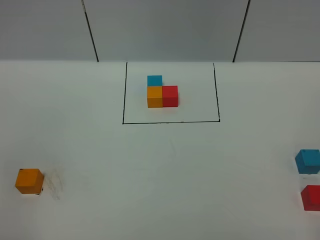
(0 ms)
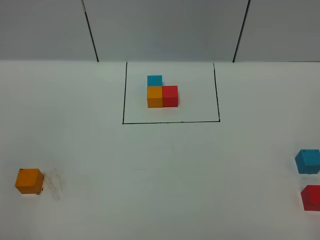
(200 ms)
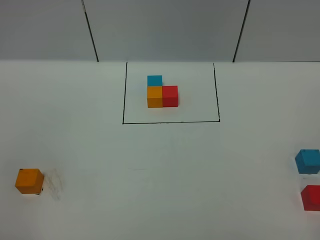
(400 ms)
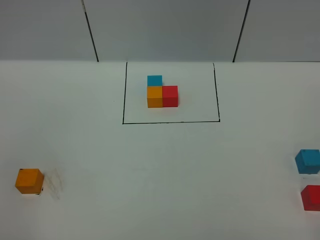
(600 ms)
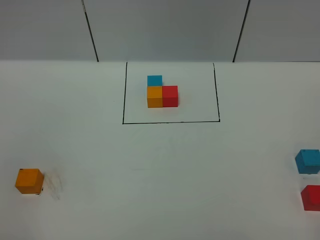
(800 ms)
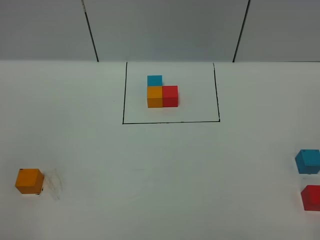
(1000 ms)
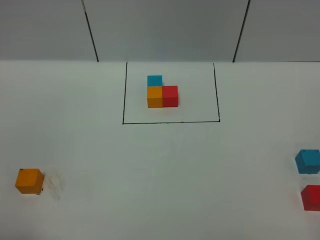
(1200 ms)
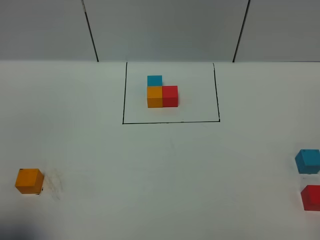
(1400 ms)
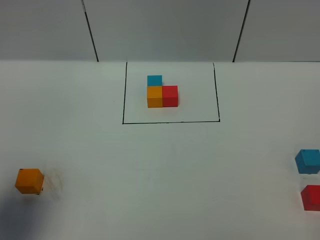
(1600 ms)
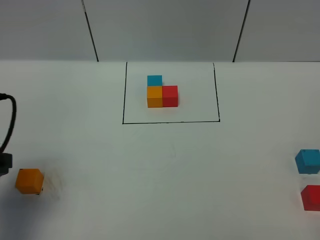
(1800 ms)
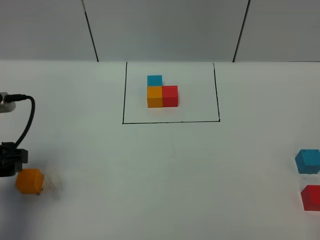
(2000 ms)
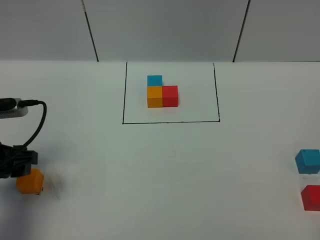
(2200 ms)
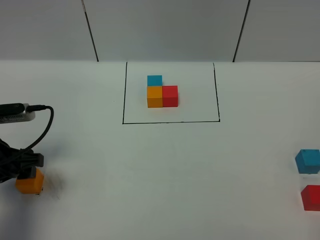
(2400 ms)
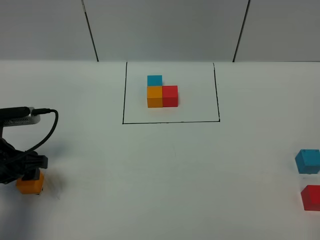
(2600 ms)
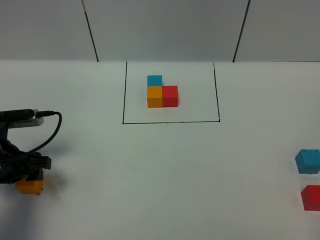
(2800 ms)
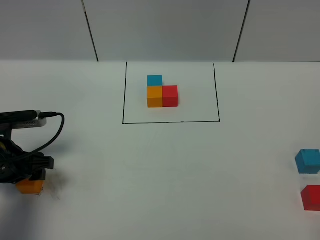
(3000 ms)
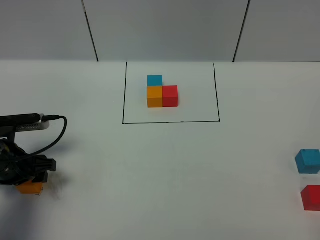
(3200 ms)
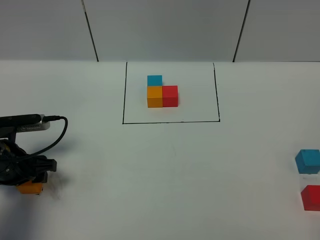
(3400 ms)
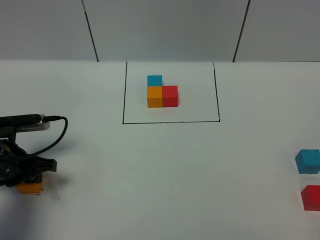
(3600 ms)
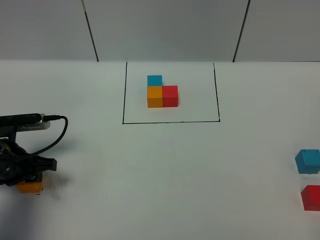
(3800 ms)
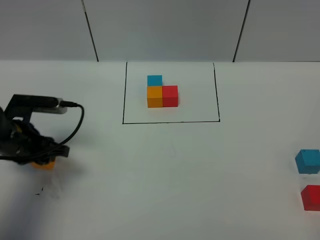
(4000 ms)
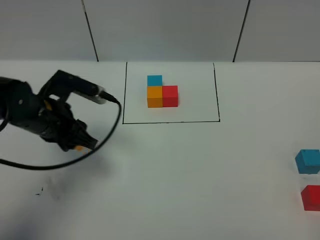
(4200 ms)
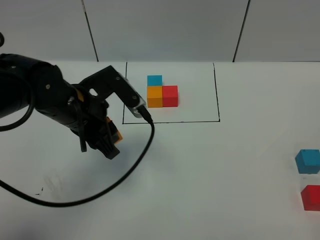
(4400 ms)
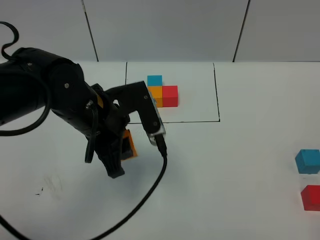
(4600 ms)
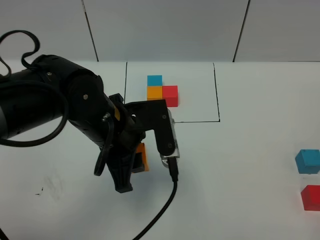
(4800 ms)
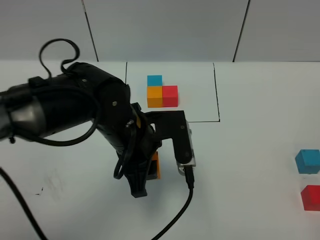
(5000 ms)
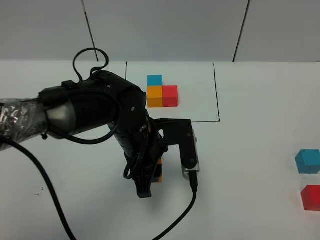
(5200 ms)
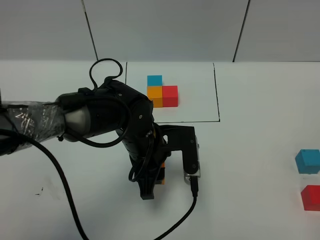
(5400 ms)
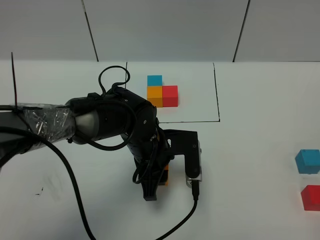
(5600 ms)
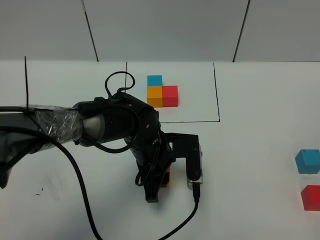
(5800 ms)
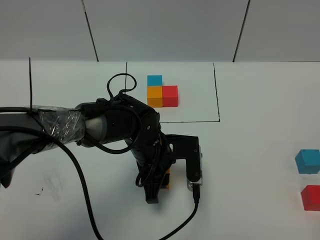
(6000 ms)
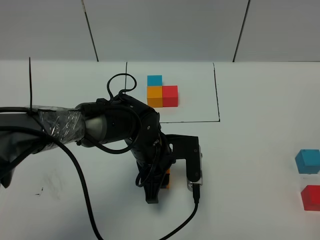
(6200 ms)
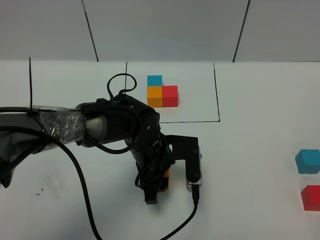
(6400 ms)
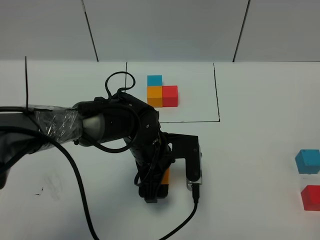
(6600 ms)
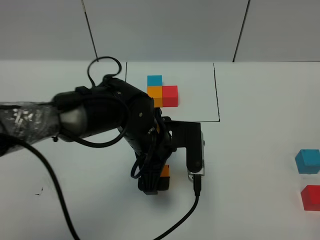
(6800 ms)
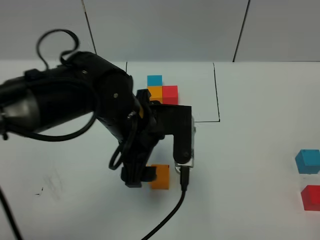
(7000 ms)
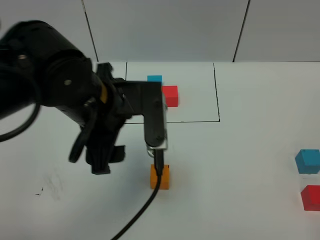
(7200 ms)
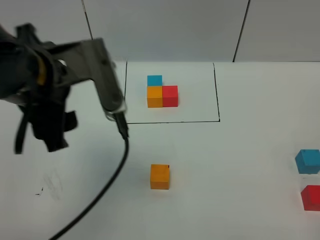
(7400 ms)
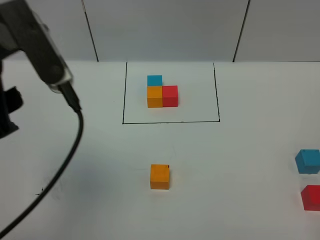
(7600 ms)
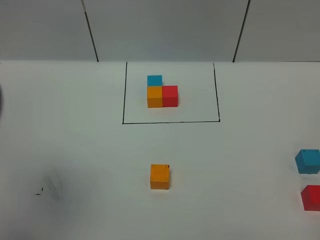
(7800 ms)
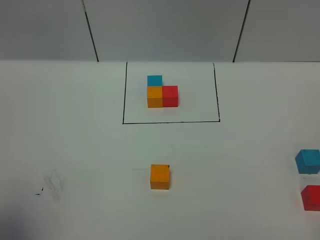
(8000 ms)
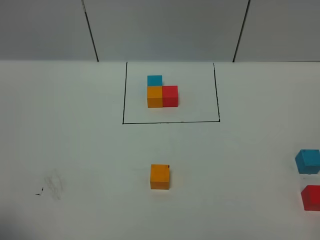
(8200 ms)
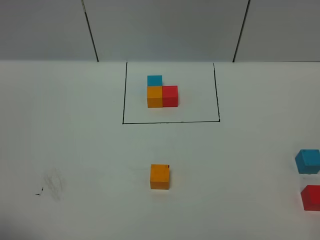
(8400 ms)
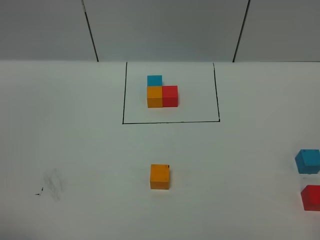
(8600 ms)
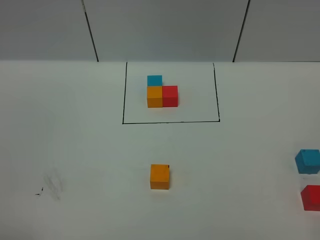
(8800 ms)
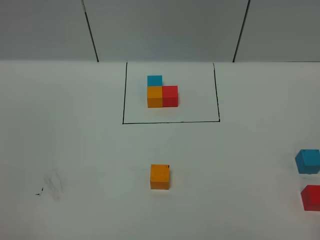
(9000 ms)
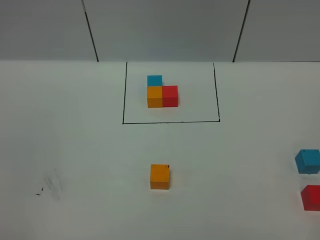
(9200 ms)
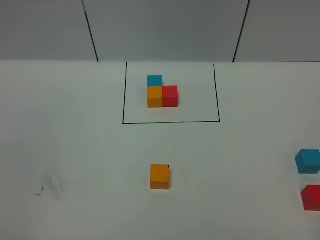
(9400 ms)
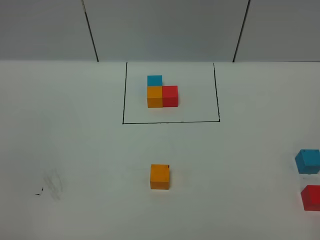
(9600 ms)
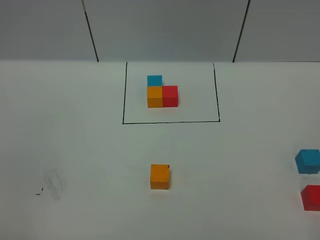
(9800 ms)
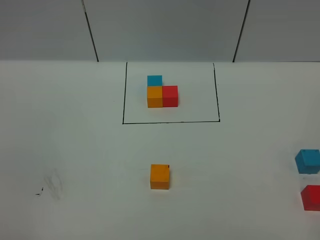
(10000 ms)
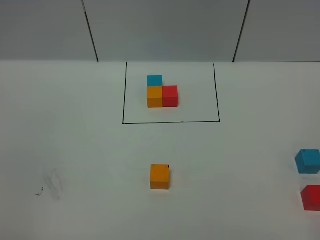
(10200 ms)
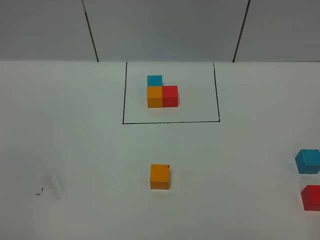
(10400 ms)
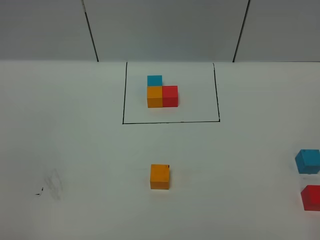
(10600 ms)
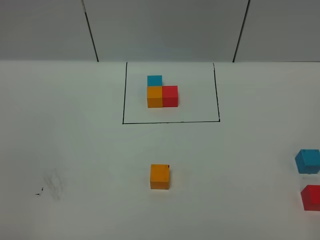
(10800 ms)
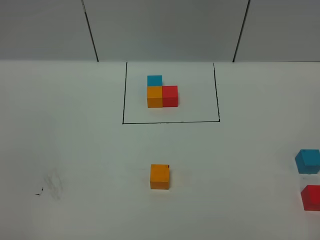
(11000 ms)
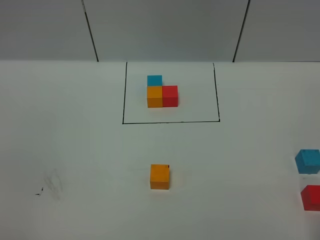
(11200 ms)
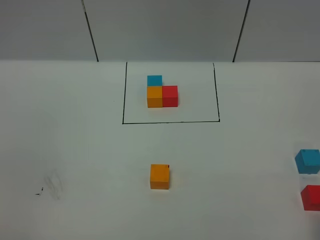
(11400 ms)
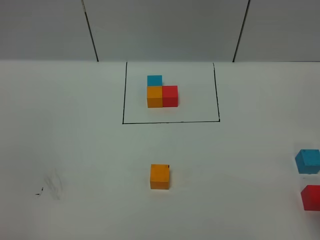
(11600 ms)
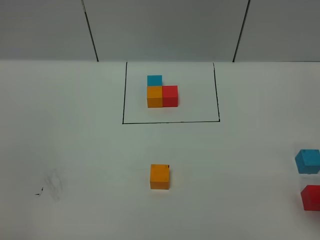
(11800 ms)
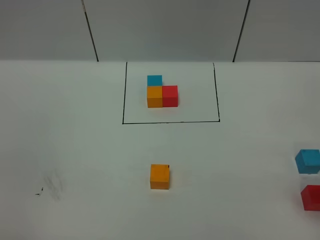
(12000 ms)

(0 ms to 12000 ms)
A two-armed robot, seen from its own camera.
Task of the whole recording: According to the building block template in front, assemble the scattered blocks together.
Step, 1800 ms - 7000 ms: Put the orange cube in the center of the table.
0 ms - 1600 ms: The left gripper moves forward, about 15 cm.
1600 ms - 3000 ms: The left gripper heads downward and forward, covering roughly 20 cm.
3000 ms - 4400 ms: The left gripper moves to the right and upward, approximately 20 cm, and closes.
4400 ms - 6000 ms: The left gripper is displaced downward and to the right by about 15 cm.
6000 ms - 7600 ms: The left gripper heads upward and to the left, covering about 35 cm, and opens up.
7600 ms - 9000 ms: The left gripper shifts some 25 cm backward, to the left and downward.

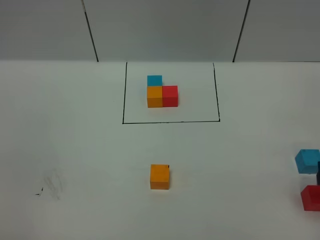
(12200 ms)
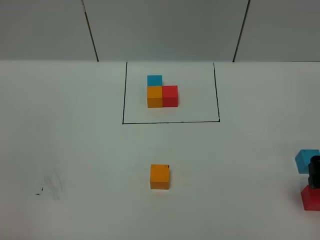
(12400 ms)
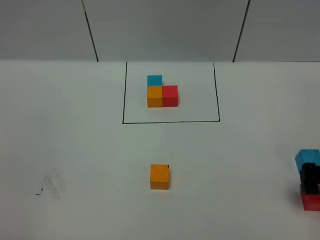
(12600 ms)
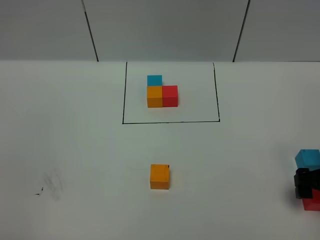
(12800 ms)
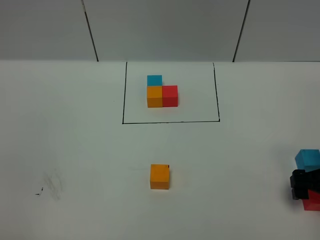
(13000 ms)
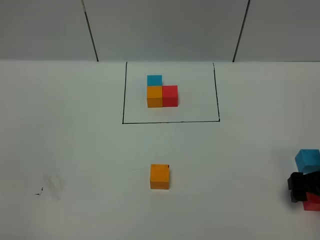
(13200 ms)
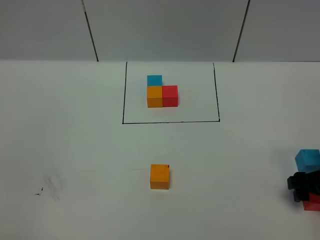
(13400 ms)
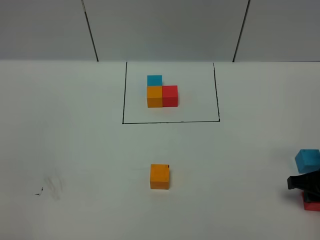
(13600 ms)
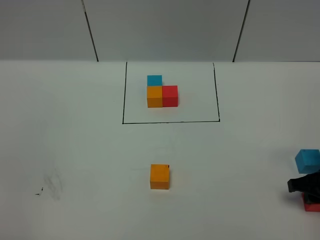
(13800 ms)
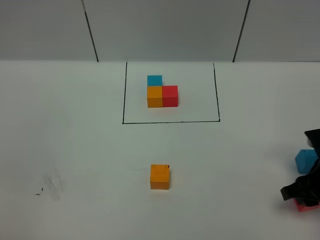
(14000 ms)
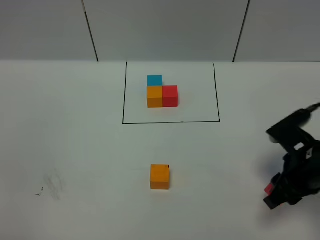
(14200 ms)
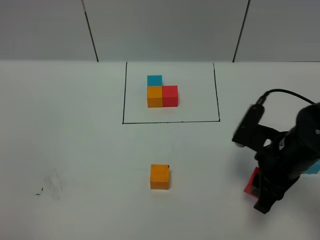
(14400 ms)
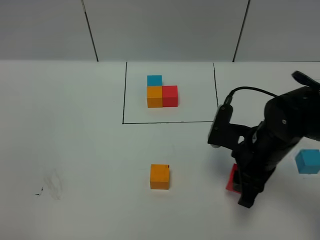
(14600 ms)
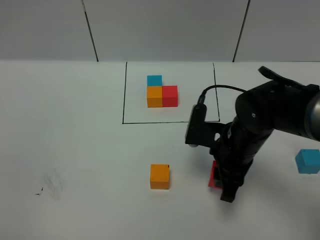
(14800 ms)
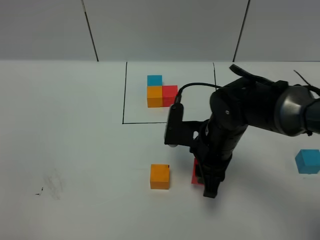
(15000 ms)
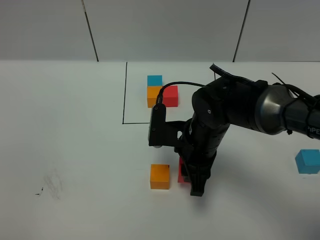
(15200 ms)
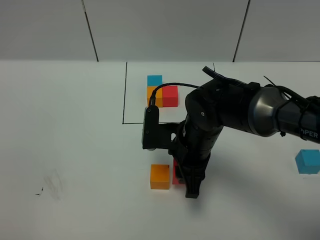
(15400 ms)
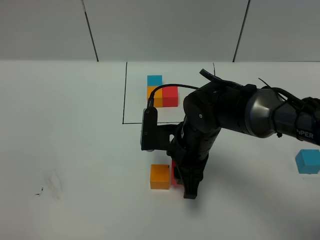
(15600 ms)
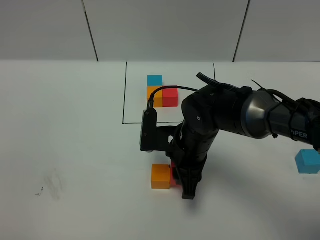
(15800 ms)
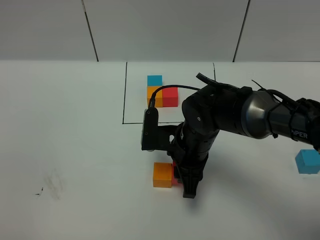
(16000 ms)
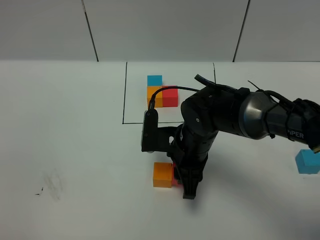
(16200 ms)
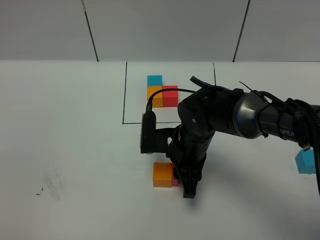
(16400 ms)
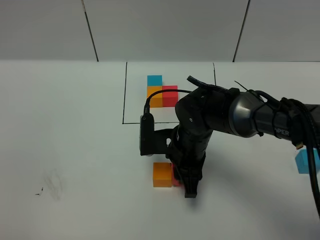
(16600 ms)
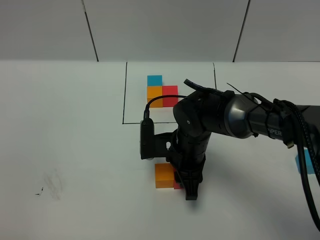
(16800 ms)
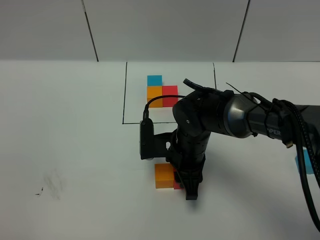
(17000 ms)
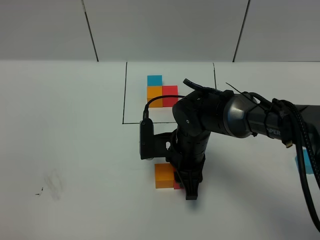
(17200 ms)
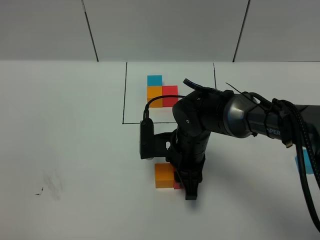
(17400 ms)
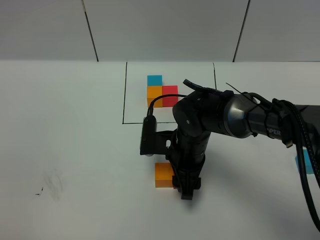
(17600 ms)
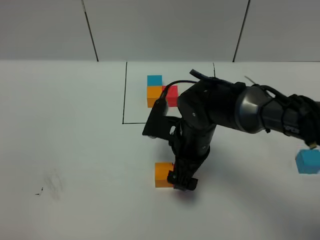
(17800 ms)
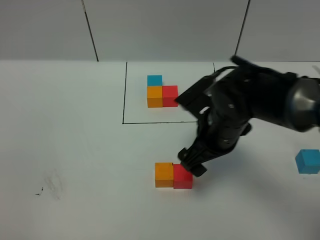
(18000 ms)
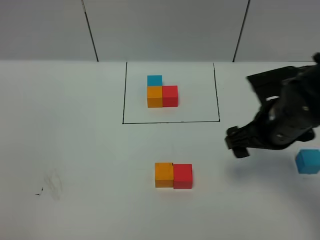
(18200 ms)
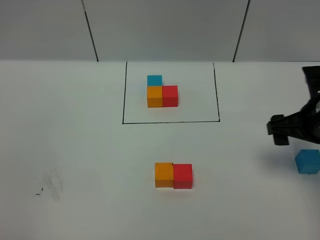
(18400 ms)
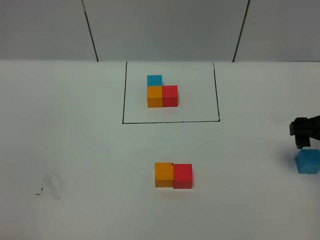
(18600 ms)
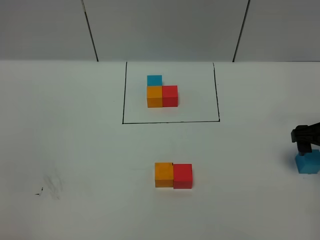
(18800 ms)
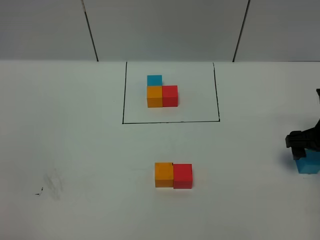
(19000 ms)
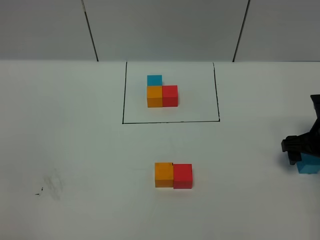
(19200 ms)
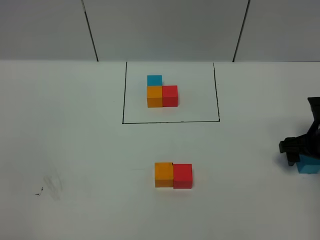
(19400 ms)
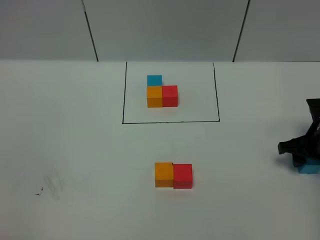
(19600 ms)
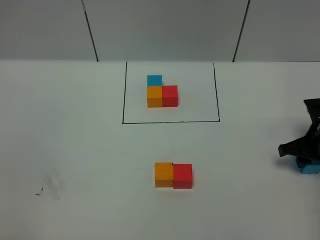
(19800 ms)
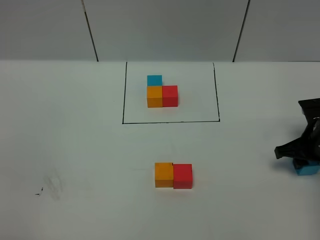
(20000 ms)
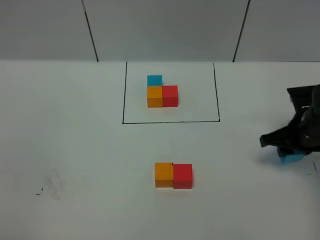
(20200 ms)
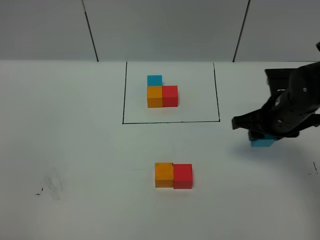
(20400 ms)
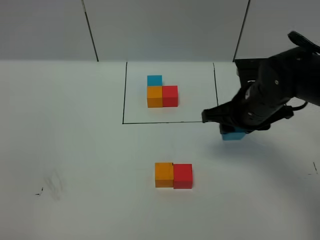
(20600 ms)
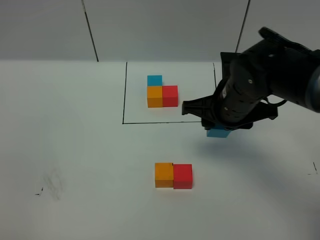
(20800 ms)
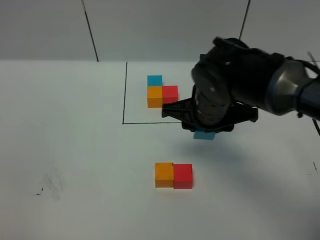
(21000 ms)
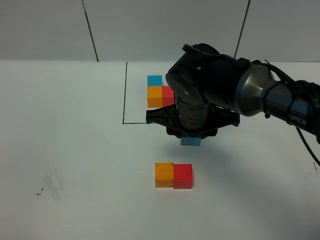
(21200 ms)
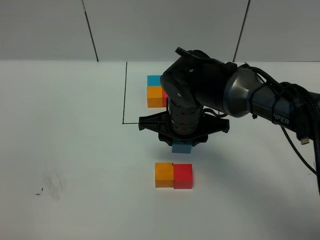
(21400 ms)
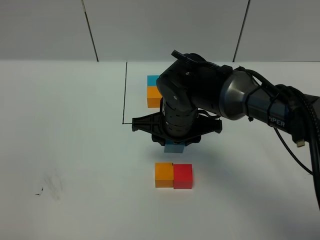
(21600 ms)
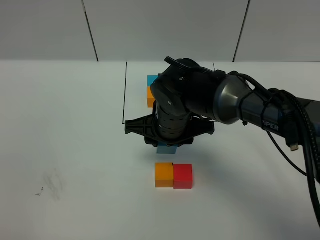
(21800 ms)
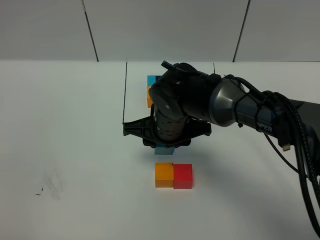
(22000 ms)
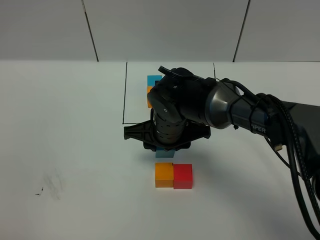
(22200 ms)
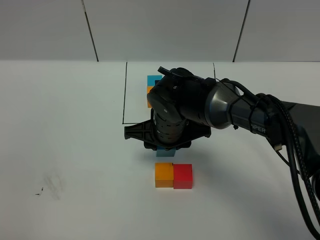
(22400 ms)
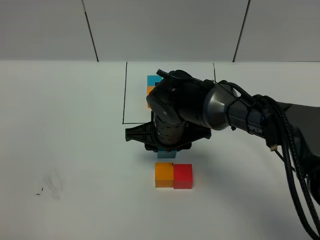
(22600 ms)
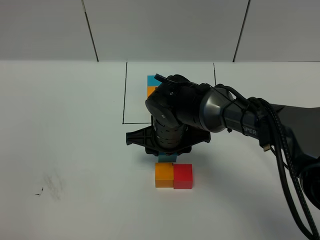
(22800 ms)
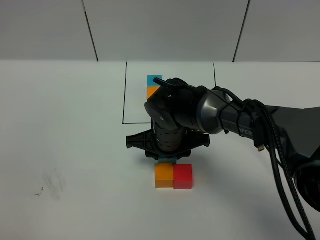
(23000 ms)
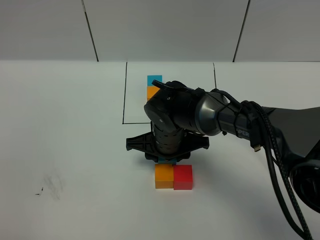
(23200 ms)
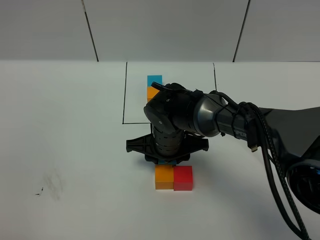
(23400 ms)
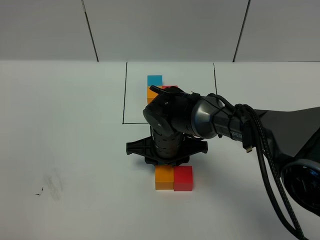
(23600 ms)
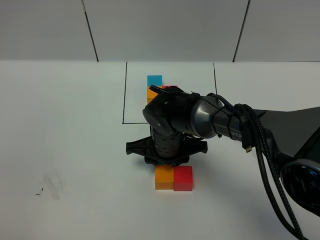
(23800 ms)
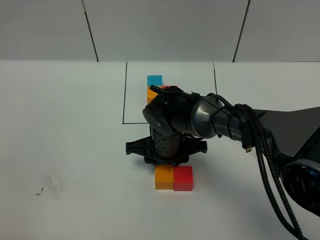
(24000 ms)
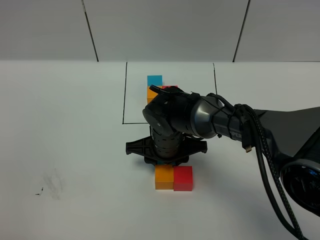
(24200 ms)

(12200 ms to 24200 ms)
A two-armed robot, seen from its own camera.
Task of the whole recording: According to the building block template in front, assemble the scattered blocks together.
Step, 12200 ms - 18000 ms: Put the red cube on the right of the orange cube.
12200 ms - 13800 ms: The right gripper goes about 10 cm downward, and closes its fingers.
13800 ms - 15200 ms: The right gripper heads to the left, covering roughly 25 cm.
15200 ms - 16600 ms: The grippers make only small movements.
16600 ms - 18200 ms: The right gripper moves to the right and upward, approximately 15 cm, and opens.
18200 ms - 19800 ms: The right gripper heads to the right and downward, covering about 15 cm, and closes.
19800 ms - 21200 ms: The right gripper heads to the left, covering roughly 25 cm.
21200 ms - 22600 ms: The right gripper travels downward by about 5 cm.
22600 ms - 24200 ms: The grippers stay close to where they were, moving slightly.
